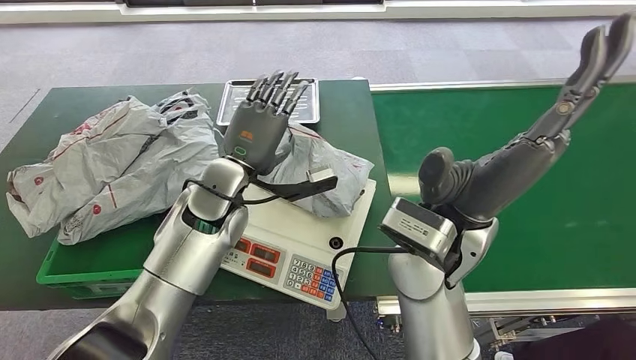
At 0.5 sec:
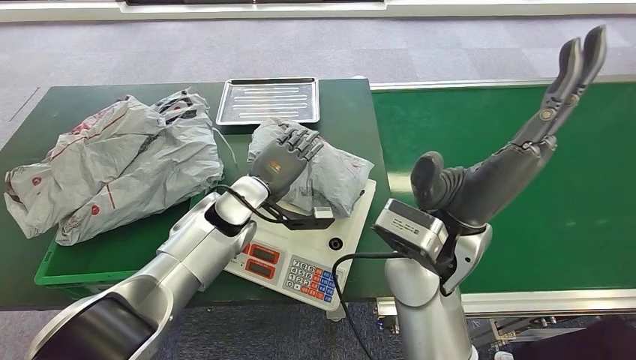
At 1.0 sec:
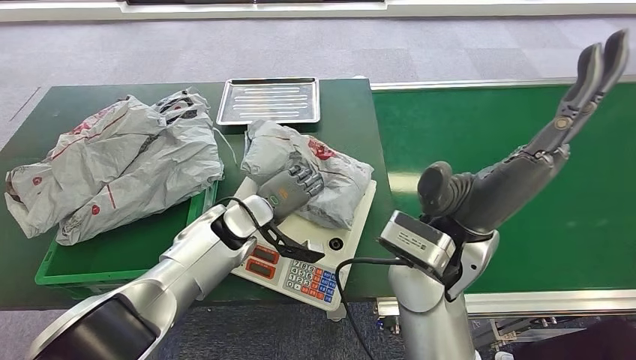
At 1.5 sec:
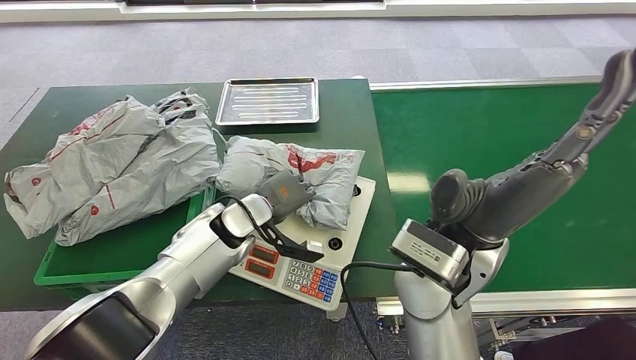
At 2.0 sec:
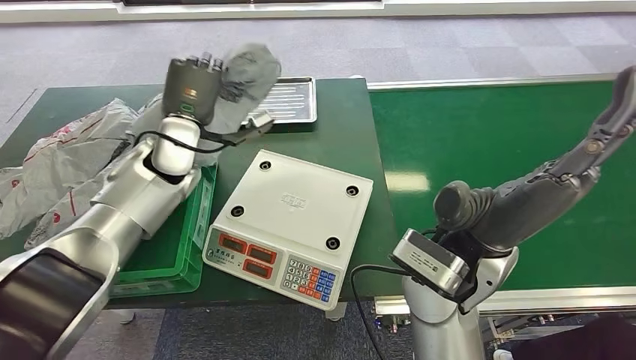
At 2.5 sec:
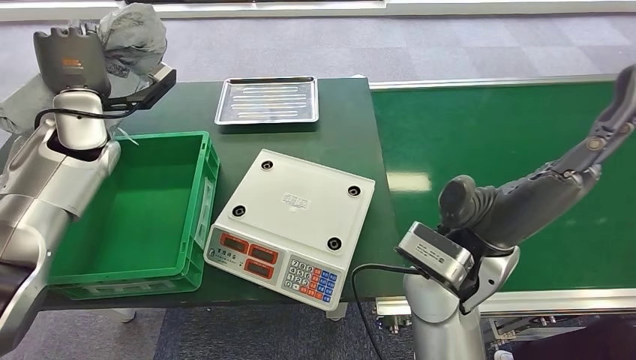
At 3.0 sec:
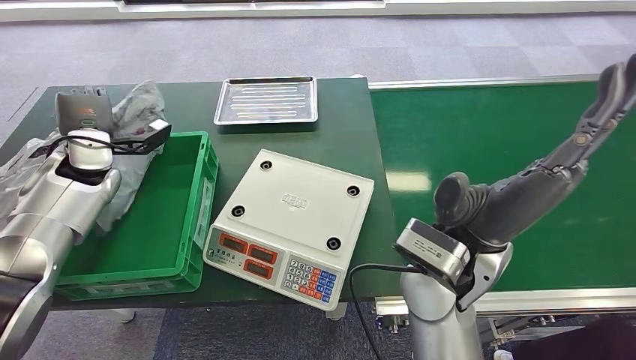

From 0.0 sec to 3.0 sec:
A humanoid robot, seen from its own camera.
Task of the whole recording: Weigh the package on the weighing device and place it in the left basket.
Step, from 0.0 sec to 2.0 sec: Pick up the package from the inbound machine.
